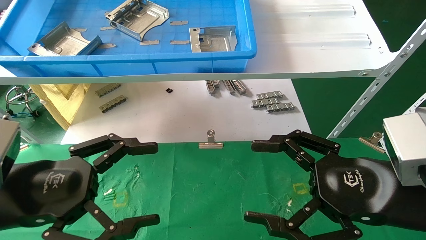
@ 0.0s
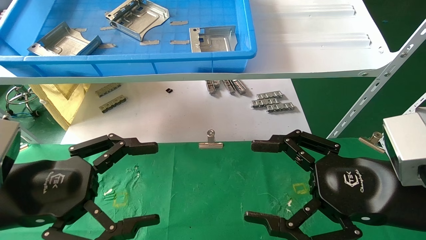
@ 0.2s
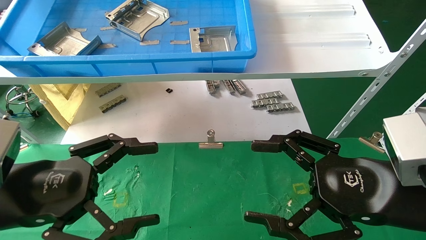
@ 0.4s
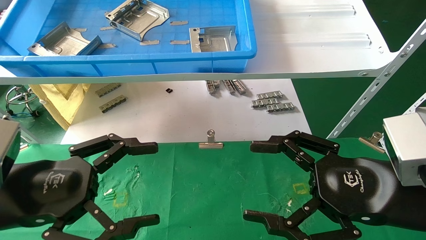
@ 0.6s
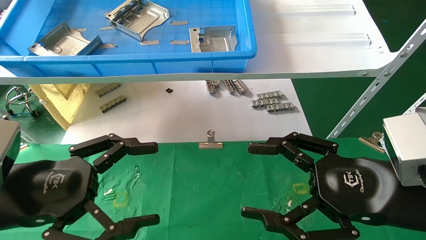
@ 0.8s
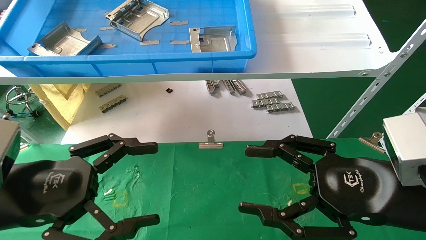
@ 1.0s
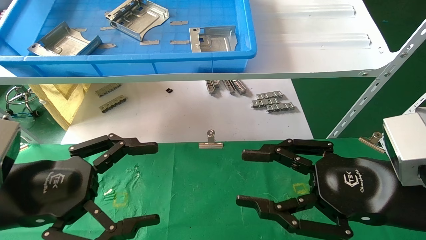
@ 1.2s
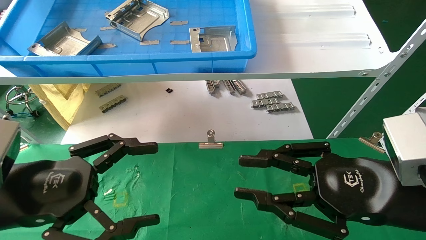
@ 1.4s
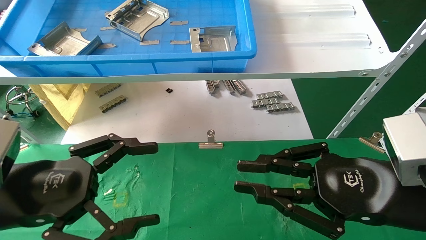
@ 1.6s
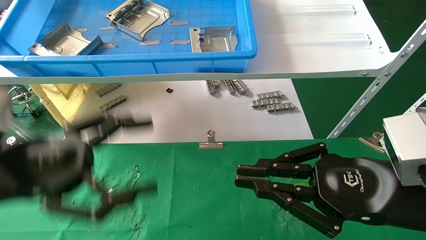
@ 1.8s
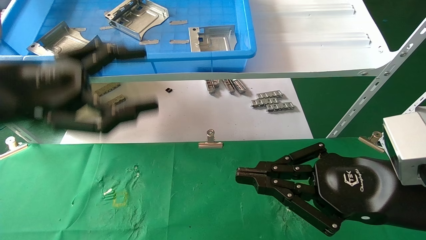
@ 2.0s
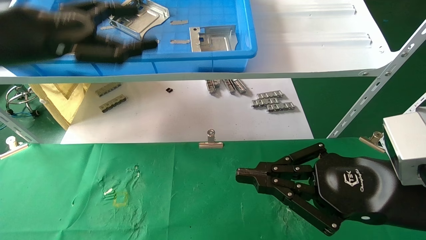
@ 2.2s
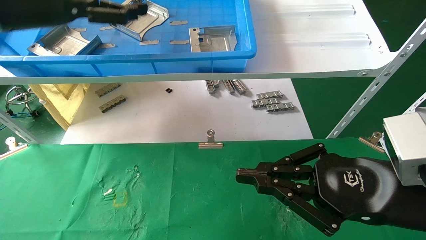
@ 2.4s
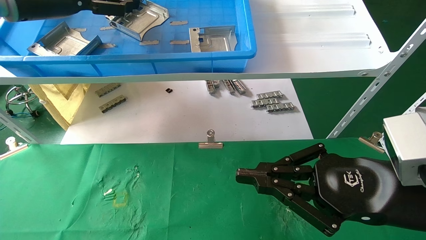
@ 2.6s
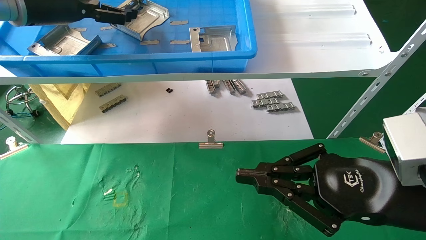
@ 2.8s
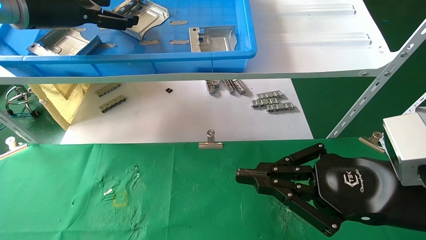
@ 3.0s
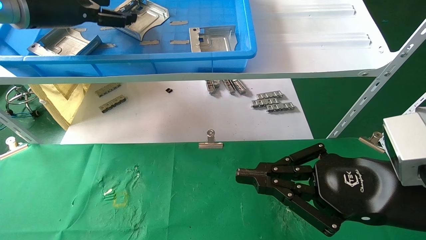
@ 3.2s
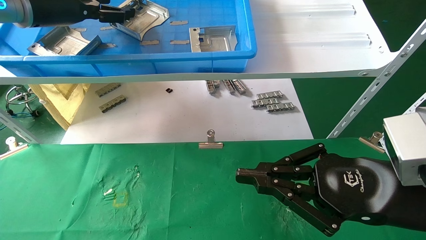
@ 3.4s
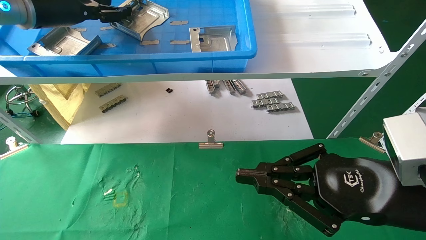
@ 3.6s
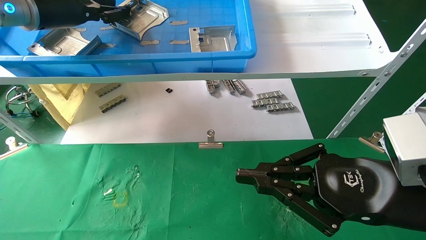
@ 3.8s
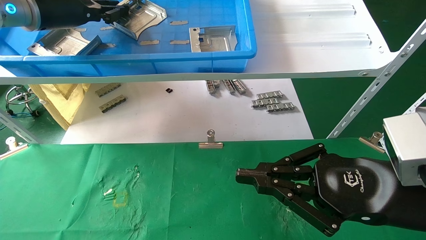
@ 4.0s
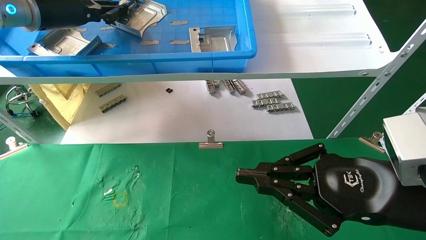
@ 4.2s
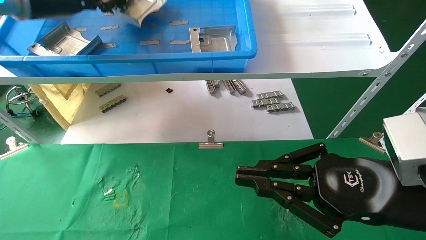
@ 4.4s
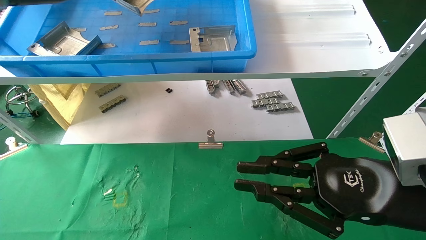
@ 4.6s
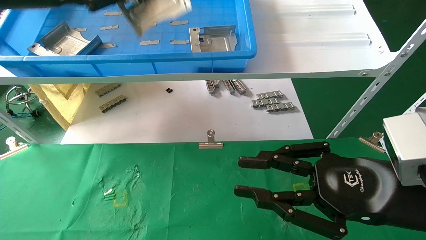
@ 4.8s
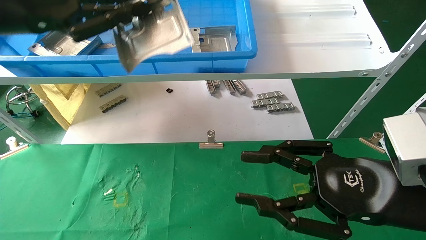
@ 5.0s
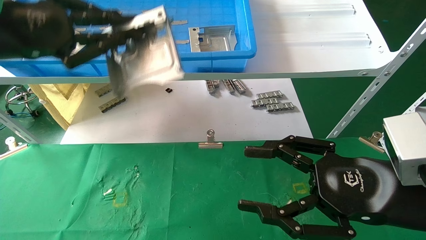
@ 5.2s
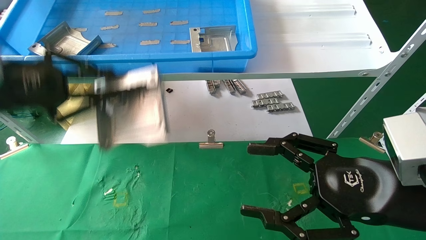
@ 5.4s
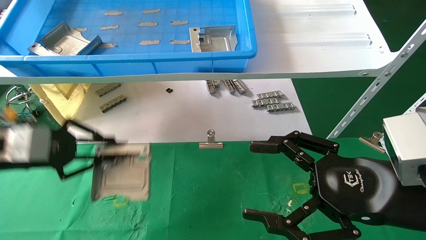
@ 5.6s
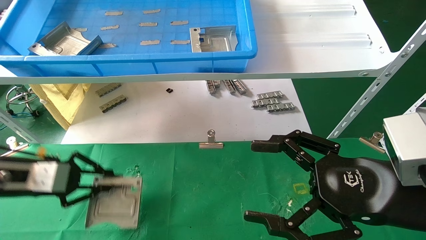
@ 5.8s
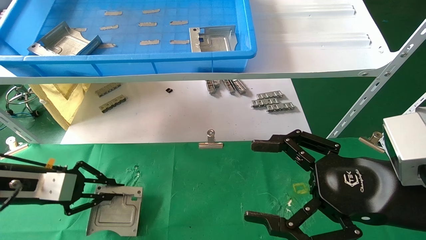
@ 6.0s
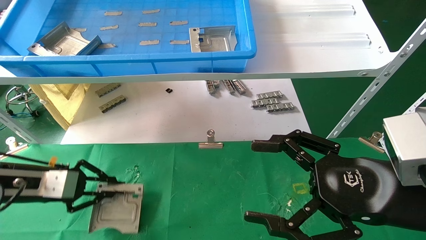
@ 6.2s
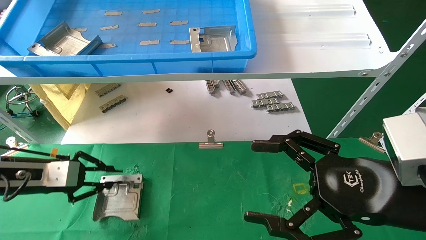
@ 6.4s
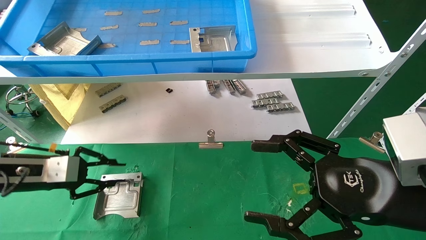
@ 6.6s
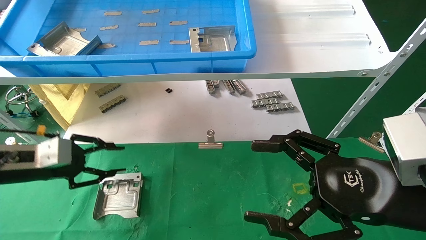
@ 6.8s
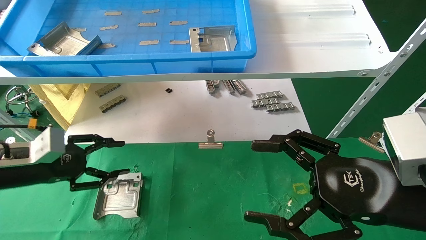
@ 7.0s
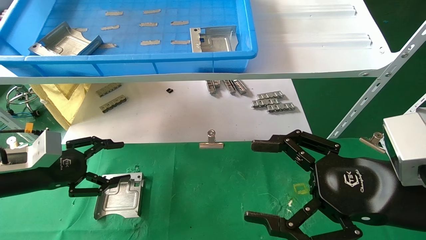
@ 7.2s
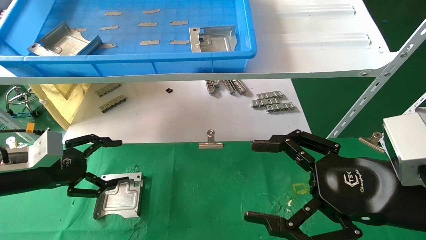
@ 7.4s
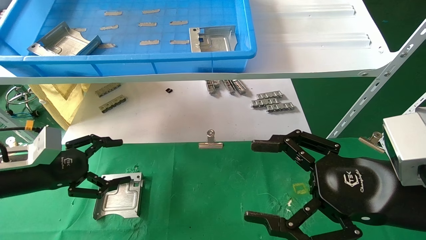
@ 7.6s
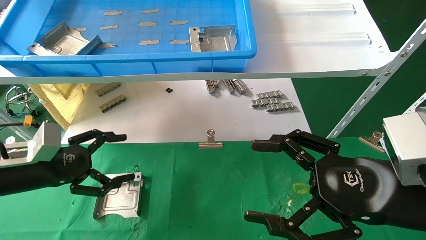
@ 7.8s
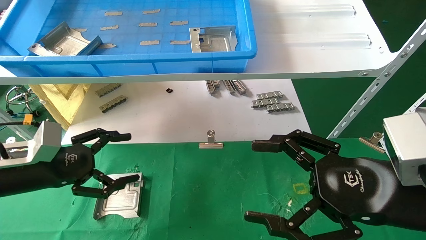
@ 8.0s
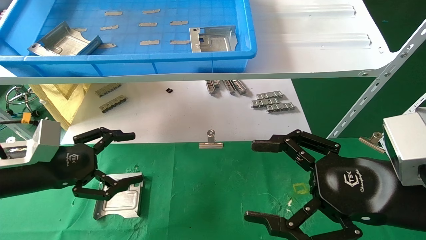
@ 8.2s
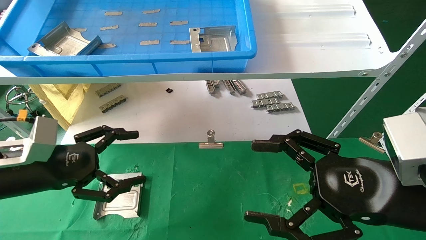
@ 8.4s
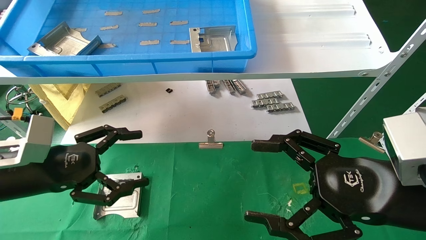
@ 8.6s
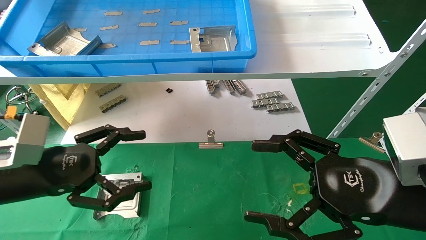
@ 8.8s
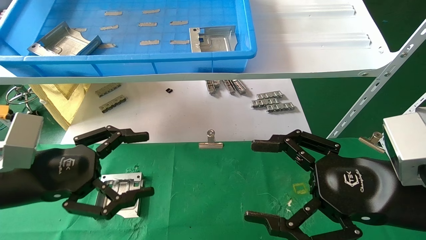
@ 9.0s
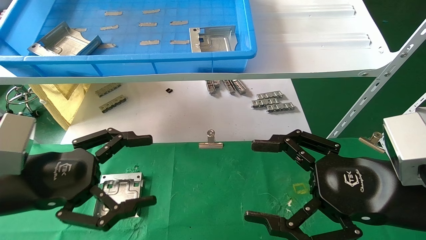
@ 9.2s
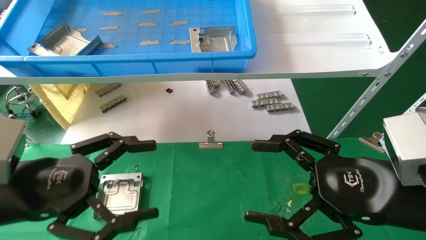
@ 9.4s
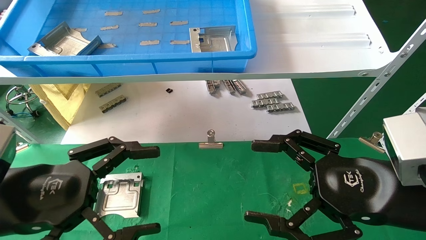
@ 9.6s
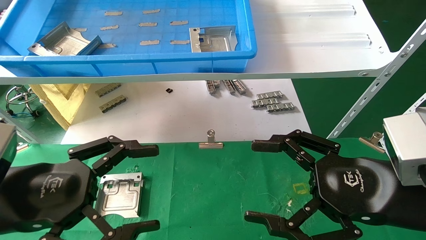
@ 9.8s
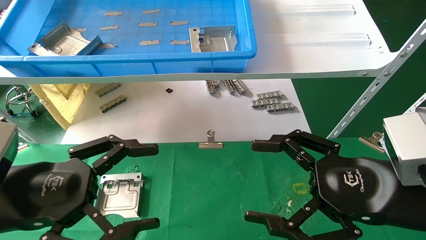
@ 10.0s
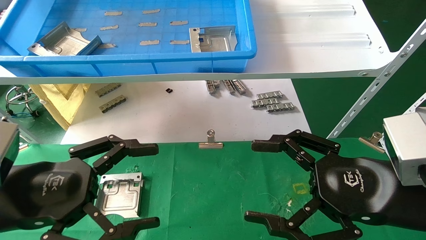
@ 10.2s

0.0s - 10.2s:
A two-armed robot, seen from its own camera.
Task of the whole recording: use the mechanical arm to pick up the parts and place them on the table.
Step, 2.2s - 4.2s: Pick up the hard drive bracket from the feeding area.
Step, 4.4s - 6.8s: Place the hard drive bracket into the box.
0.0s - 1.4s: The right gripper closes its fingers.
1.4s - 3.0s: The left gripper moves upward and forward, approximately 30 cm. The right gripper closes up.
3.0s - 4.4s: The left gripper closes.
4.4s - 5.8s: The left gripper is displaced downward by about 25 cm; the right gripper opens its fingers.
5.8s - 7.2s: The left gripper opens.
7.2s - 8.8s: The left gripper shifts about 10 cm to the right and backward, and opens.
8.8s - 10.2s: The left gripper heads backward, covering about 5 cm.

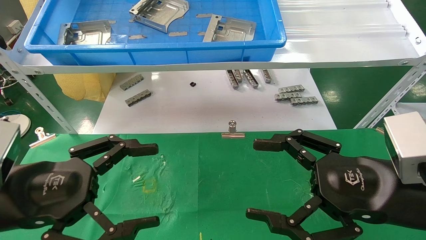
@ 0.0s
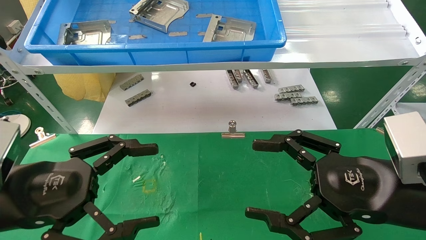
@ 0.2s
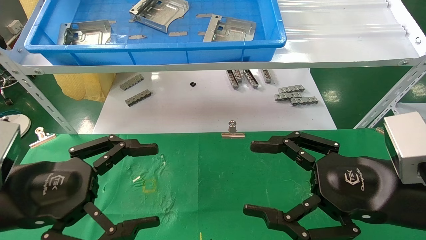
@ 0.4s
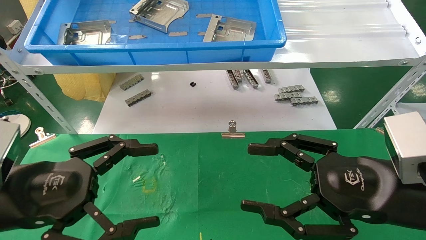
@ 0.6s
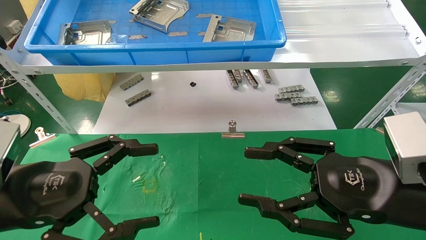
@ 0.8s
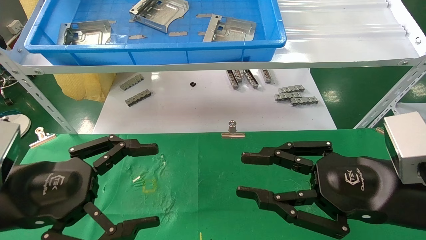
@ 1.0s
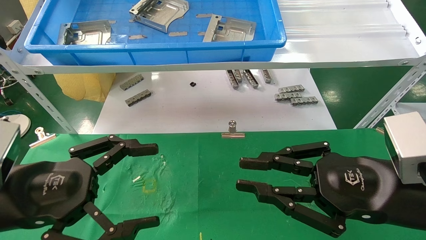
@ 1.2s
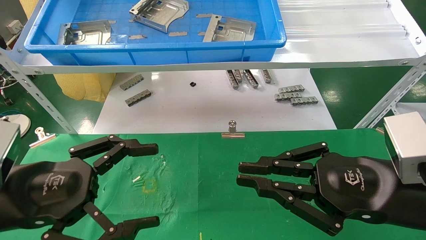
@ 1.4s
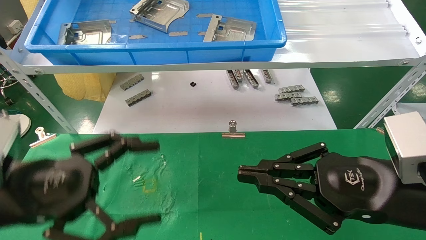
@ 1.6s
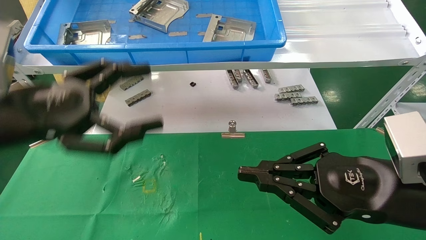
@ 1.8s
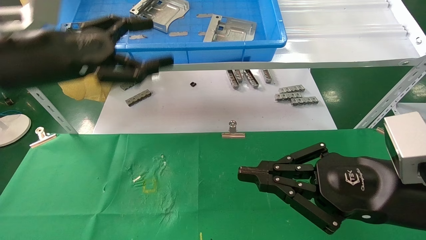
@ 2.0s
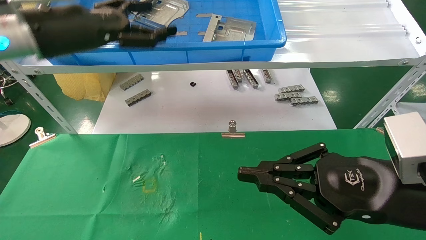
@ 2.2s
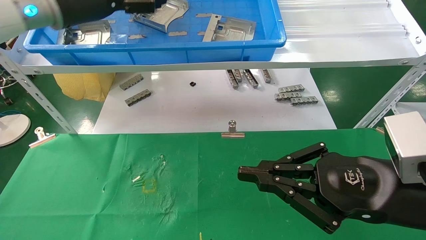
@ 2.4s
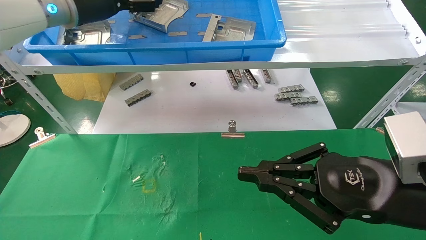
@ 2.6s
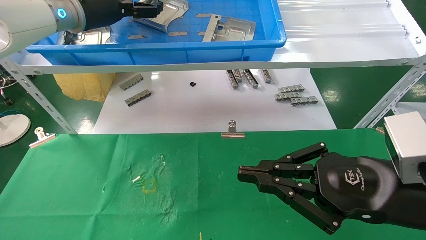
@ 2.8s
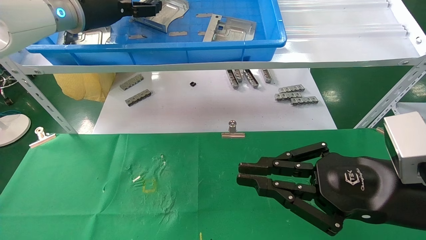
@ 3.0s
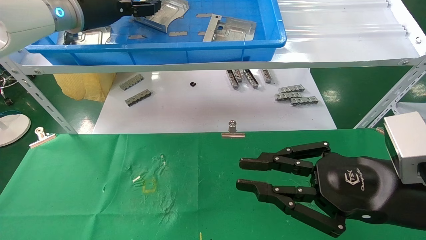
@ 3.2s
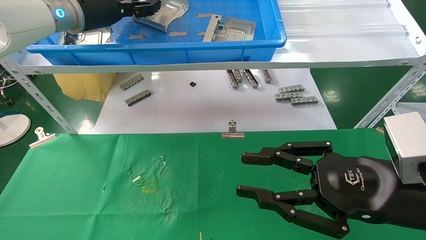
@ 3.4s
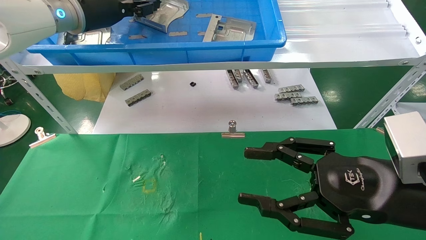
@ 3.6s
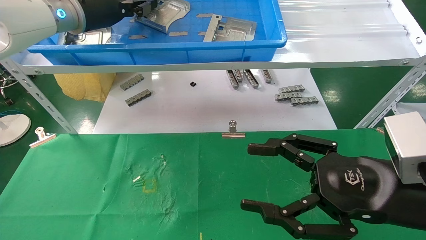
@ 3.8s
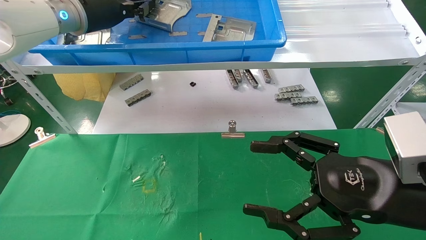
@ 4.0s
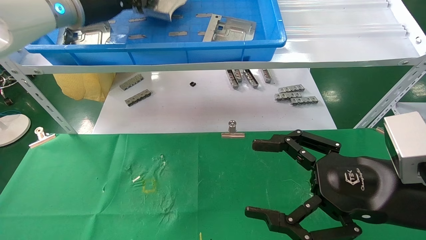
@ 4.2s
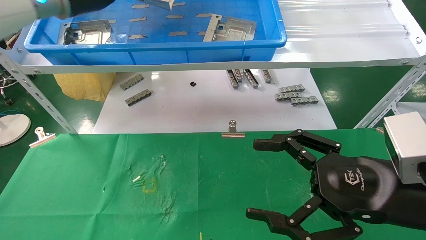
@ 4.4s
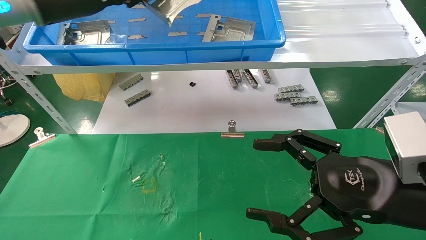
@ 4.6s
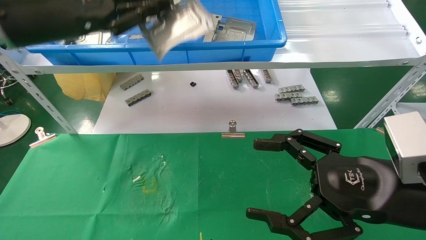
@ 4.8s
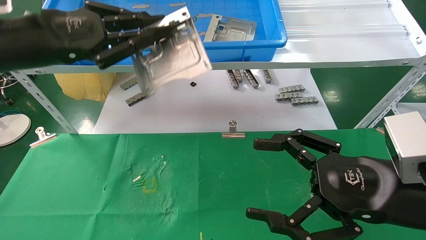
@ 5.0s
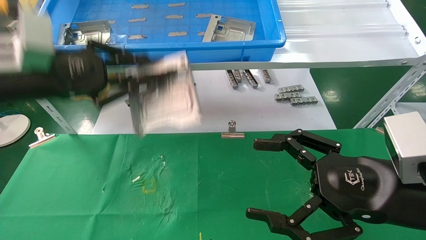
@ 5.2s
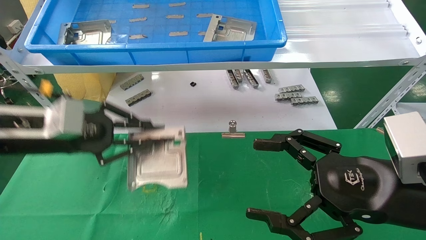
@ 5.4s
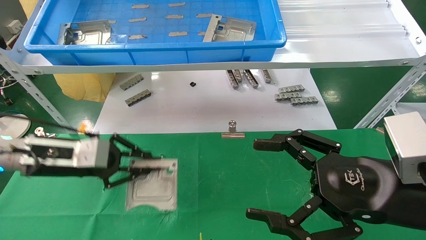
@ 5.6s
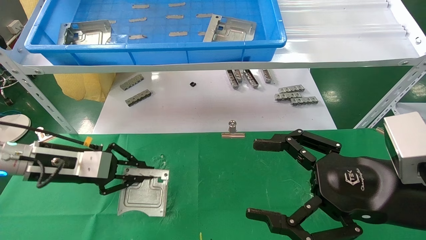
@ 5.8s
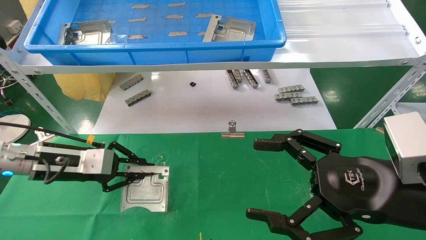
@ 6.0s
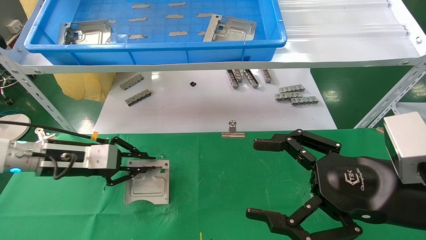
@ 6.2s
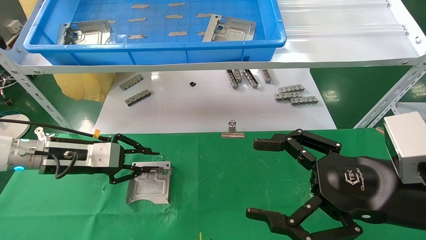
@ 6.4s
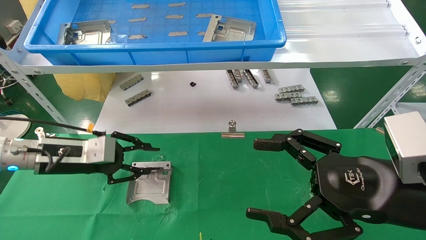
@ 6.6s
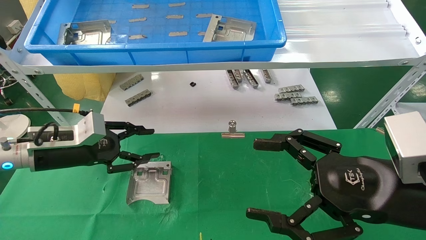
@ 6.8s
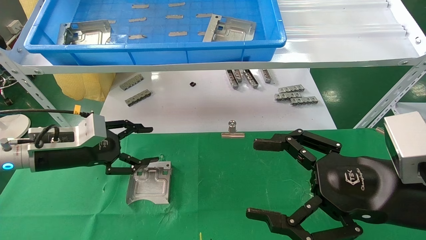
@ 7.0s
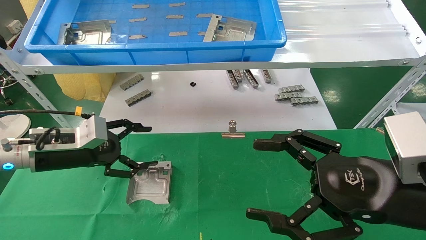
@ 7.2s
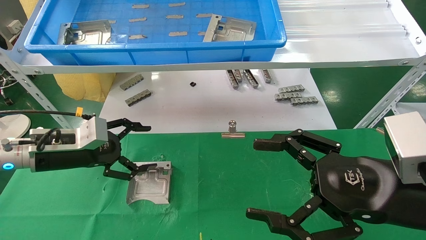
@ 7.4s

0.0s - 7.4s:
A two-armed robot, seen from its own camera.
Task of the whole recording: use the mechanical arm to pick up the parts and place them on the table.
Step, 1.8s - 4.0s: Pick up the hard drive bracket from the feeding area.
Step, 4.2s - 6.2s: Place the hard drive bracket into the box.
0.0s - 1.4s: The right gripper closes up.
1.4s - 3.0s: The left gripper goes about 35 cm forward and upward.
3.0s - 4.4s: The left gripper closes, while the right gripper opens its fingers.
4.4s - 6.0s: The left gripper travels downward by approximately 25 cm.
6.0s - 7.4s: The left gripper opens its fingers.
